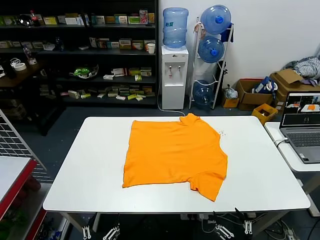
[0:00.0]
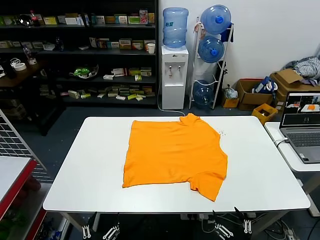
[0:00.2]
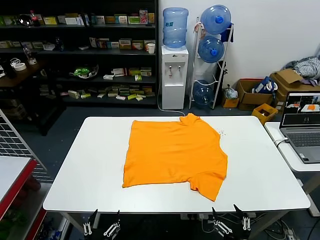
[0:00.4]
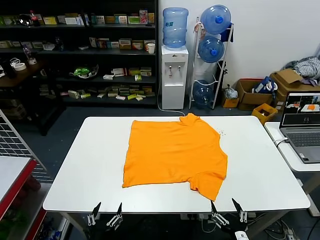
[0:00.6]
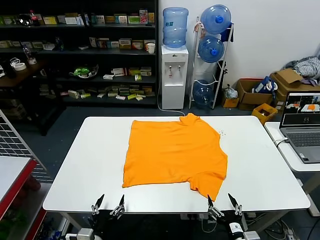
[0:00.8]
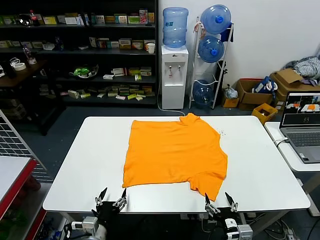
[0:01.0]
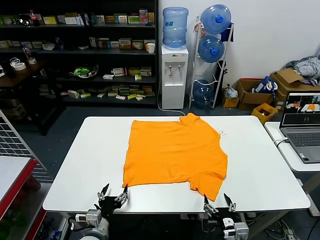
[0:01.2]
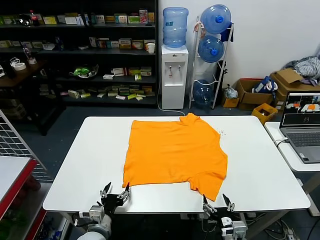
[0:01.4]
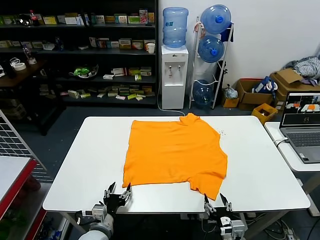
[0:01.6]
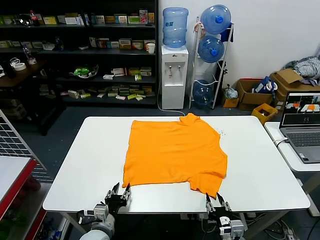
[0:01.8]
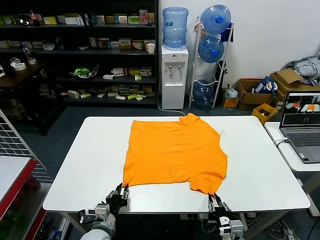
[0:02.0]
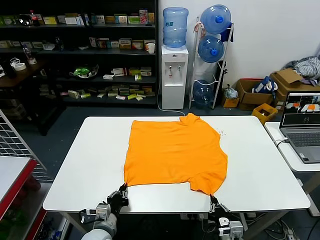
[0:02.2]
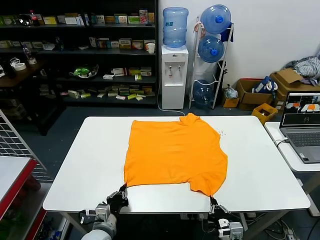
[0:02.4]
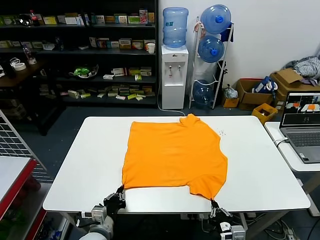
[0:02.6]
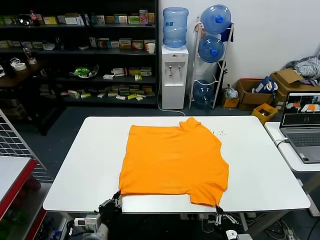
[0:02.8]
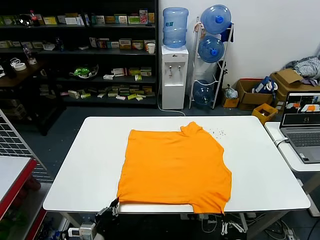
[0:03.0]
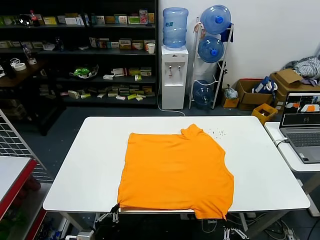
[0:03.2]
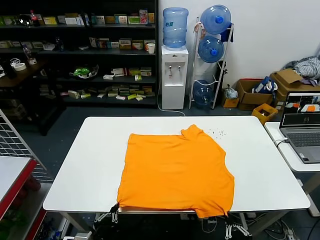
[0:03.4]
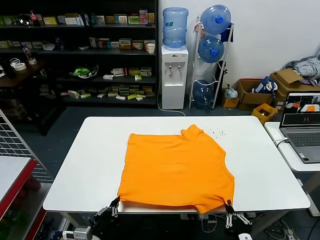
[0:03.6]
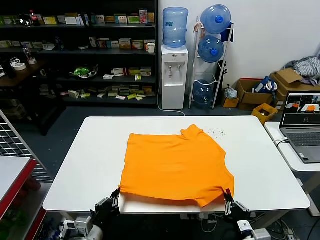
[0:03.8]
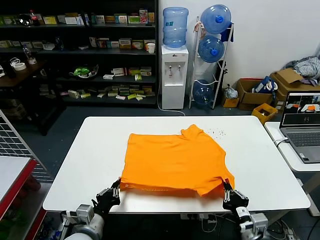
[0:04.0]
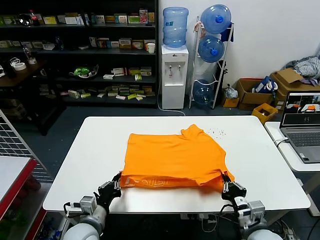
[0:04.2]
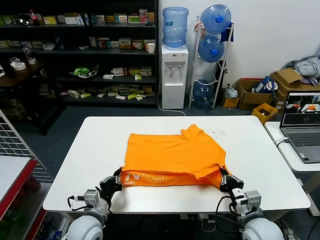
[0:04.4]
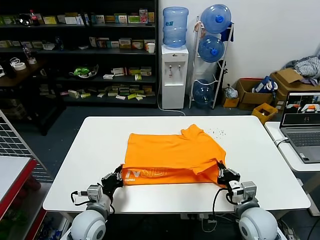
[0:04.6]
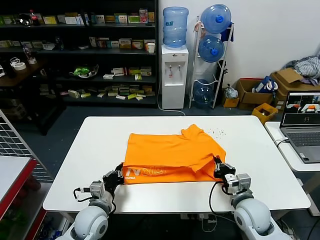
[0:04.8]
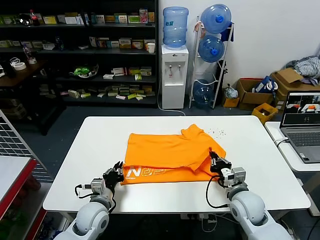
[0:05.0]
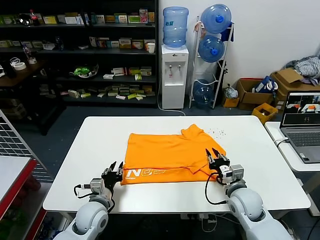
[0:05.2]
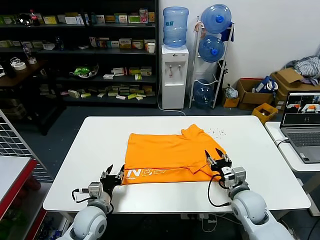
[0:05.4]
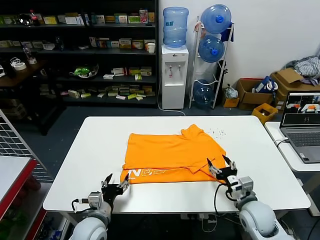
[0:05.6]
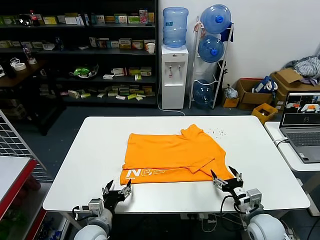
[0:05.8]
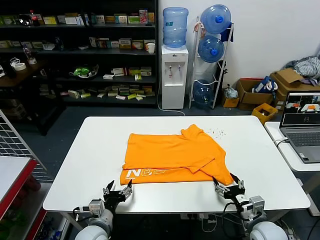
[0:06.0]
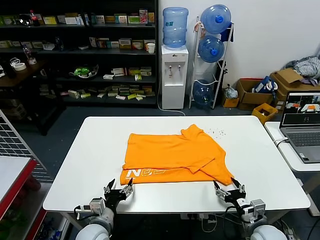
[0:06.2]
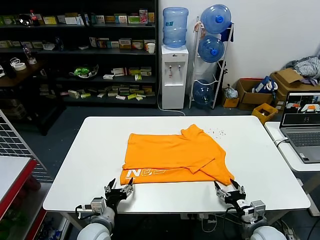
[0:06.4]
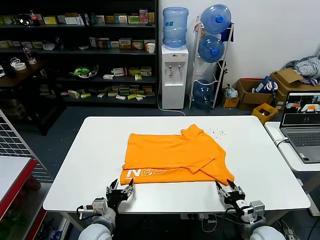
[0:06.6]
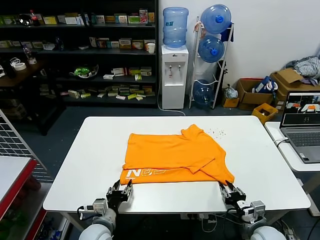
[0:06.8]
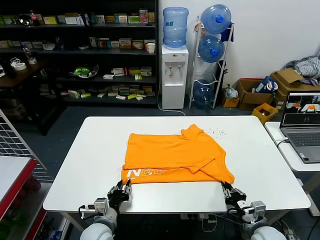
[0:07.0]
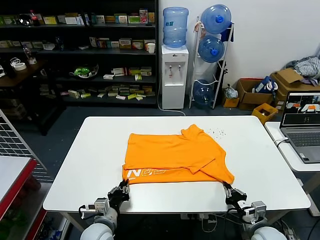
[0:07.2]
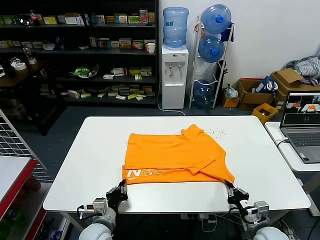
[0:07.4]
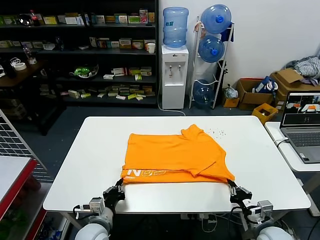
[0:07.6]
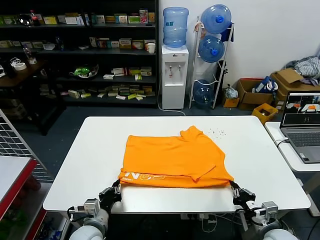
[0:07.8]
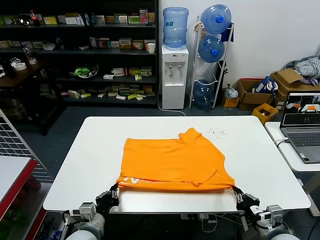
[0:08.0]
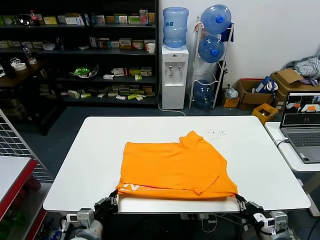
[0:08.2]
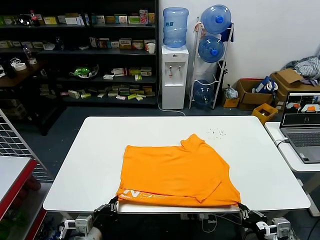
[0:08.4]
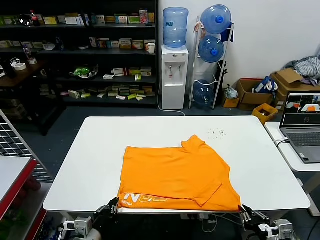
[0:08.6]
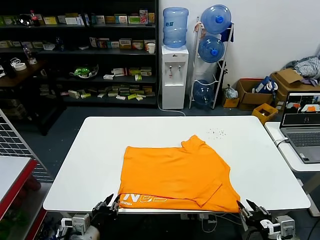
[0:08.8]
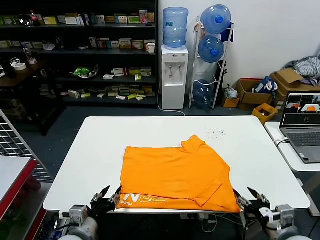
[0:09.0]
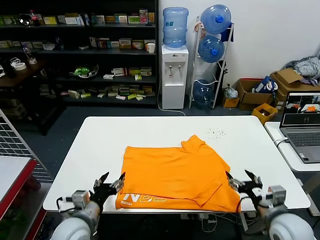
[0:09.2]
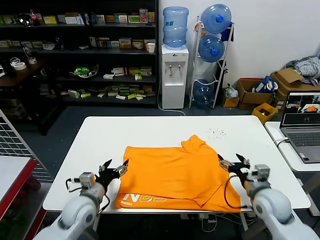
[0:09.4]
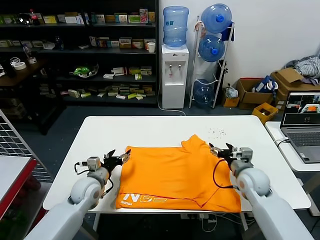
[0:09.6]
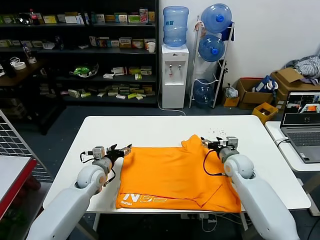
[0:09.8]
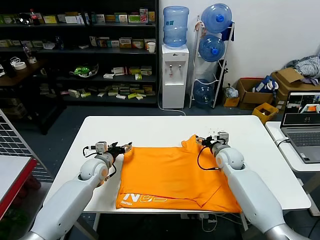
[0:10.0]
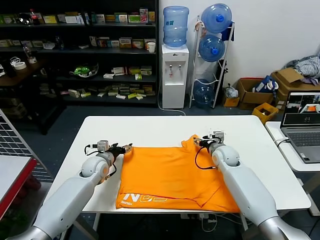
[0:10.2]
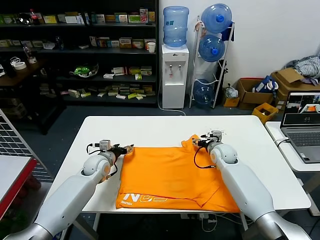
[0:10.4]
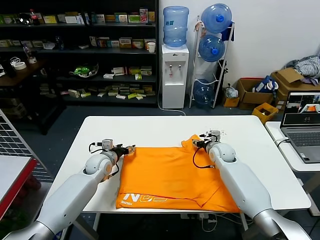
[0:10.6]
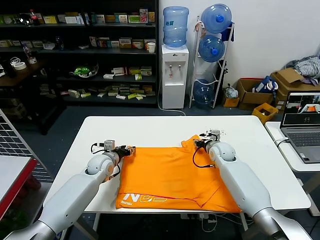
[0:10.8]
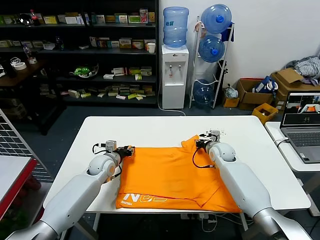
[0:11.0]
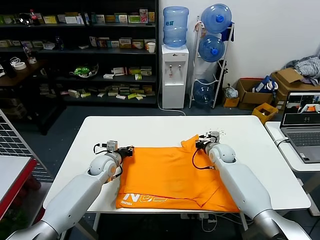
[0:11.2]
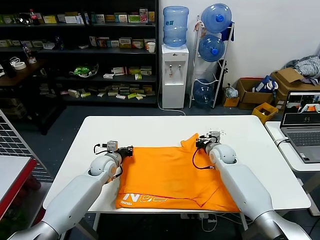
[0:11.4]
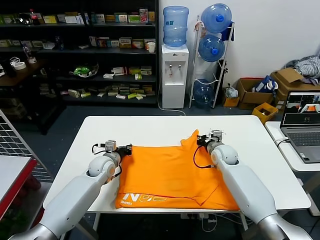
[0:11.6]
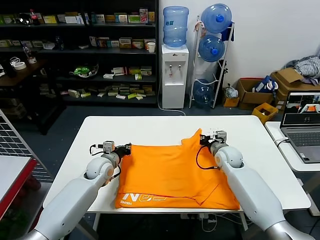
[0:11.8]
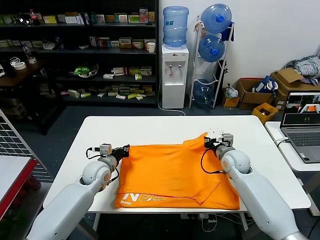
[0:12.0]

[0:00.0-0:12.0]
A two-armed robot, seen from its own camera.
Task of the whole recording: fold and organize the clothes.
Step, 0:00.0 to 0:02.2: use both grippers simultaneously to clamp the lower edge of the clothing fabric.
Step, 0:02.6 to 0:05.0: use both grippers to drag the lower edge of the fabric forward and fold it over the upper edge.
Step, 0:05.2 to 0:08.6: Drag the clothes downward with both gripper.
Step, 0:08.8 to 0:11.2: use both grippers simultaneously to clamp the upper edge of the clothing fabric.
0:01.6 to 0:03.0: The right gripper goes about 10 cm backward and upward, and closes. The left gripper moves backward, approximately 5 cm, and closes.
0:03.0 to 0:04.4: The right gripper moves forward, about 15 cm, while the left gripper heads forward, covering roughly 10 cm.
0:04.4 to 0:06.0: The right gripper moves downward, approximately 5 cm, reaches roughly 10 cm forward, then returns, and opens up, while the left gripper opens its fingers.
0:06.0 to 0:07.6: The right gripper closes up. The left gripper closes up.
0:07.6 to 0:09.0: The right gripper travels upward by roughly 10 cm, and opens; the left gripper goes about 10 cm upward and backward, and opens up.
0:09.0 to 0:10.4: Both grippers move forward, roughly 30 cm. The left gripper opens.
0:10.4 to 0:12.0: The left gripper closes its fingers; the right gripper heads backward, covering some 5 cm, and closes up.

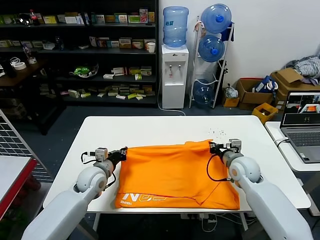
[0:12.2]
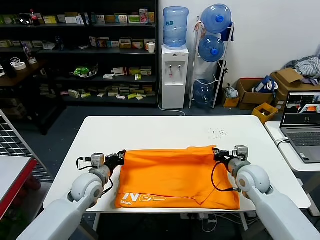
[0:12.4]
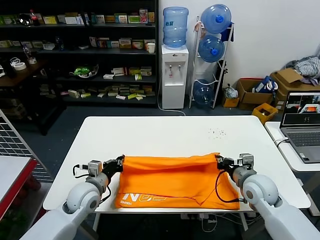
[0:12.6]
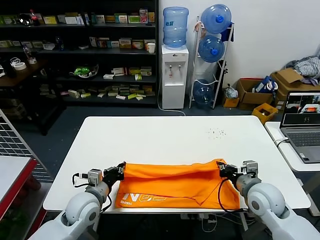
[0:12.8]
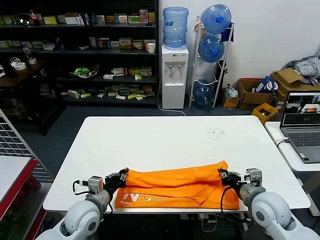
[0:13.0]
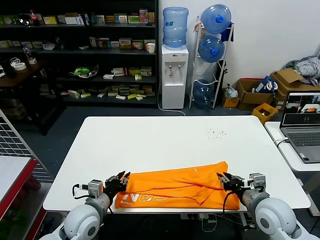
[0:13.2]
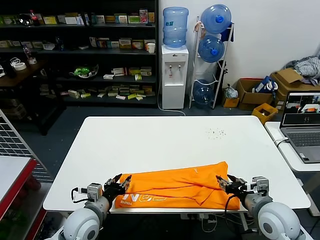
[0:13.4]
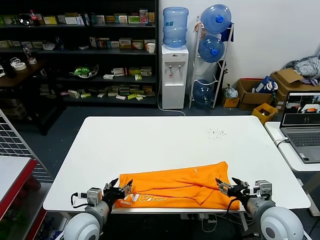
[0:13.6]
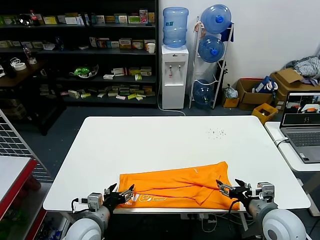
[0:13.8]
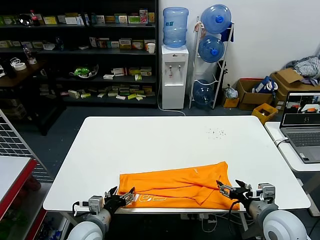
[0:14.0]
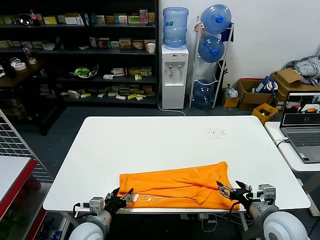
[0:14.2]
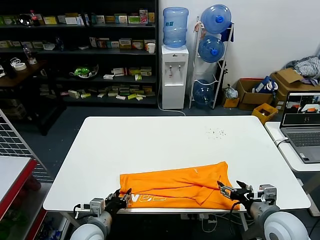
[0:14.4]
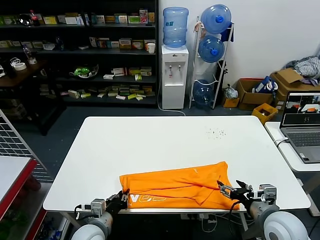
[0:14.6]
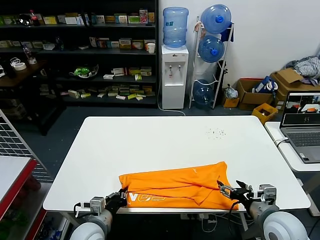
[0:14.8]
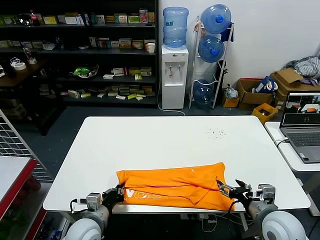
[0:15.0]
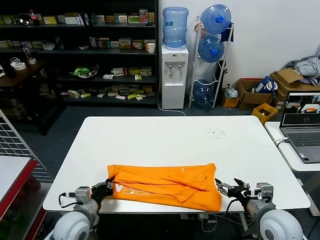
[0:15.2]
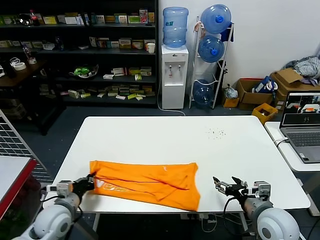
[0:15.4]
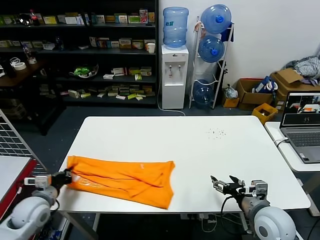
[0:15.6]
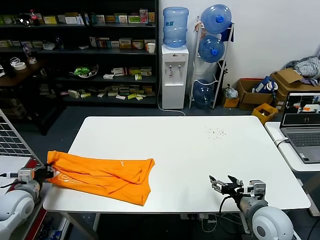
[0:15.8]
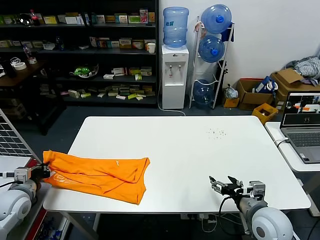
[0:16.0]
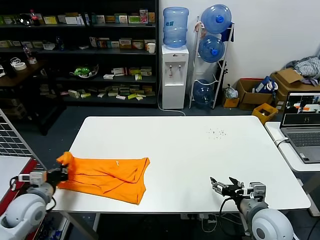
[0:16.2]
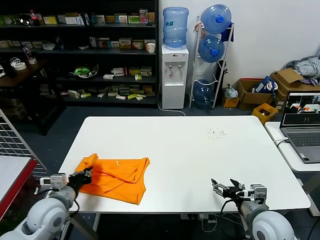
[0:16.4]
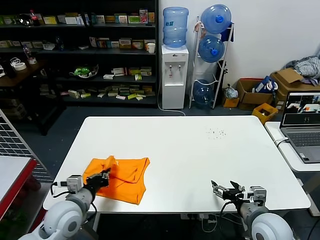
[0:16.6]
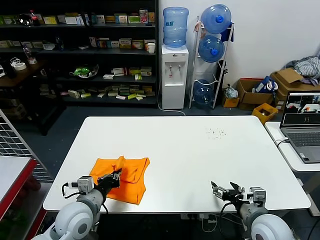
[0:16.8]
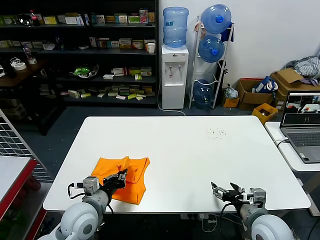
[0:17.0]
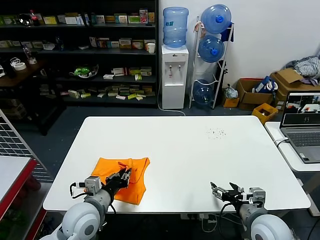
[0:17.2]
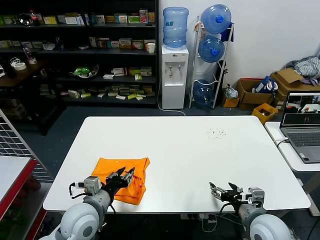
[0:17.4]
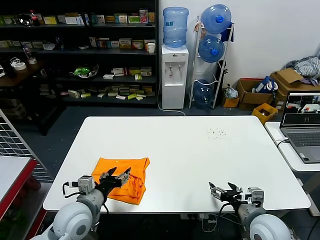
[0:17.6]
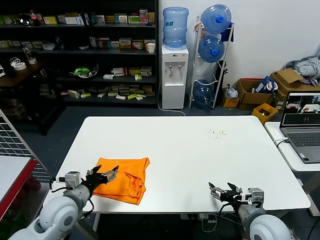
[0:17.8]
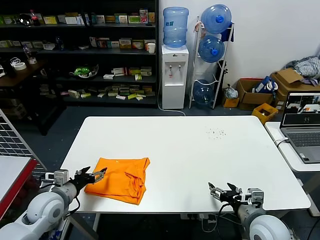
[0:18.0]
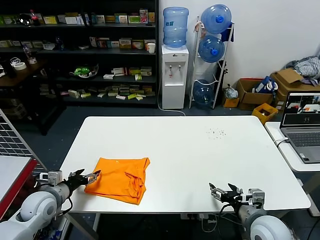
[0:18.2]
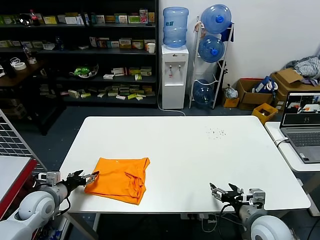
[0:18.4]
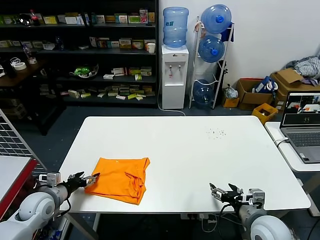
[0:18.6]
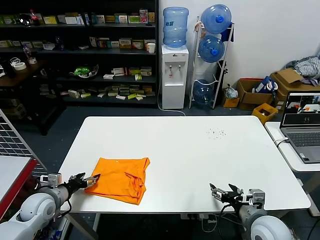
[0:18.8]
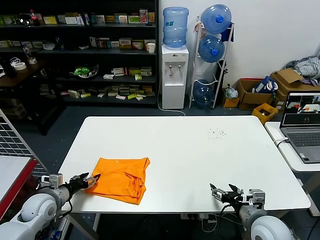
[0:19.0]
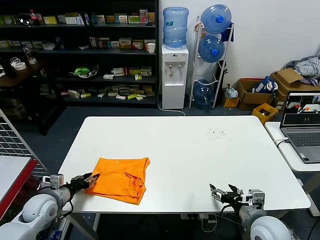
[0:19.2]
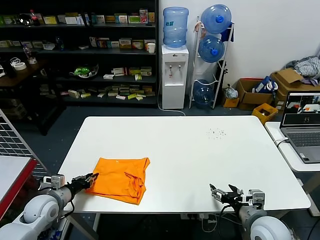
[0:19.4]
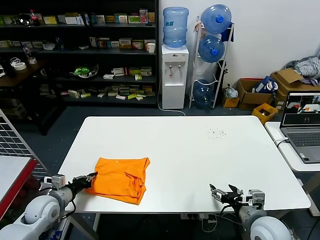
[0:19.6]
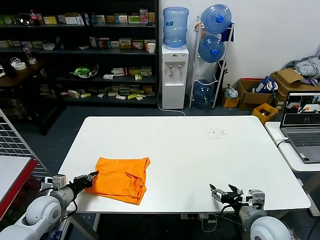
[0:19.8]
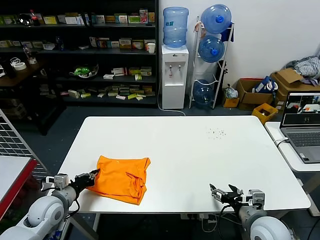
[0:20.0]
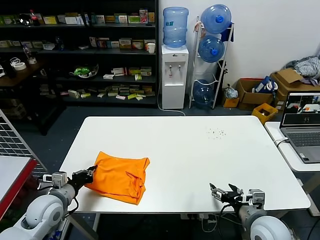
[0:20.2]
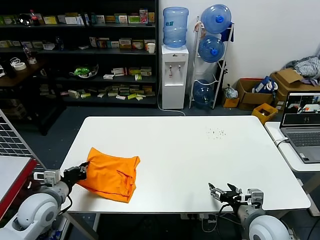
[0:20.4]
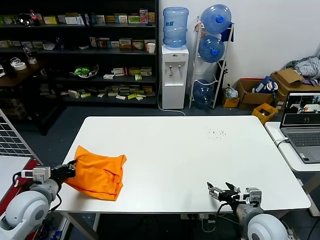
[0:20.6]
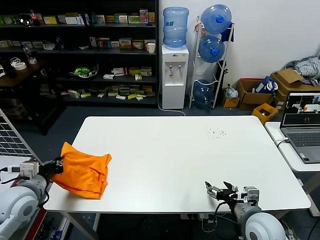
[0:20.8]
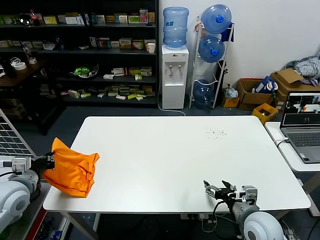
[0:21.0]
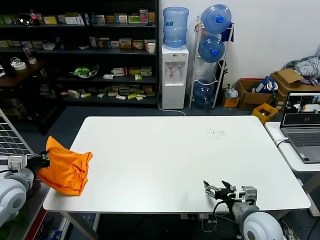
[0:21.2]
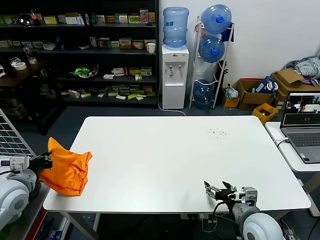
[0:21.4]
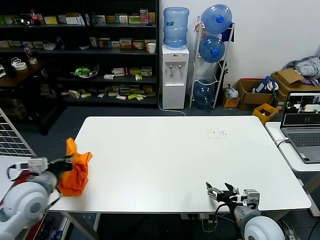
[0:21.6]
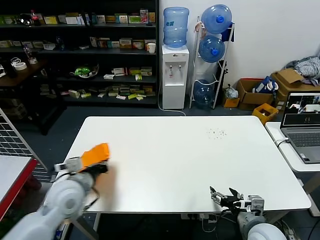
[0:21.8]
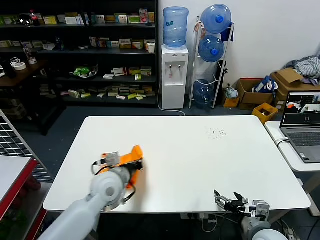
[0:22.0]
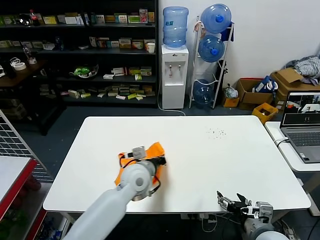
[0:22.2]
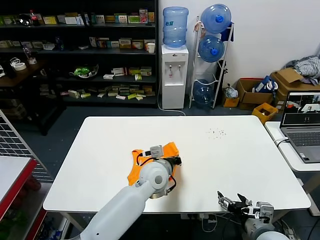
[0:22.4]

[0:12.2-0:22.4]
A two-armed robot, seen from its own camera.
Task of the whole recording: fold and organize the clothes.
Step, 0:12.2 to 0:13.2: use both grippers to drag the upper edge of the fabric backward and fold it over the lower edge.
Step, 0:13.4 to 0:14.8: use the left gripper to clamp the left edge of the fabric.
Step, 0:15.0 to 0:17.2: use the left gripper to drag the left edge of the fabric to the left and folds it over the right edge.
0:12.2 to 0:13.6: The grippers both shift backward by about 15 cm. The left gripper opens up. Meanwhile the right gripper opens.
0:13.6 to 0:15.2: The left gripper closes up.
0:15.2 to 0:16.6: The left gripper goes about 5 cm upward, and travels to the left and back again, some 20 cm each way.
0:16.6 to 0:18.0: The left gripper ends up roughly 5 cm from where it was, and opens.
0:18.0 to 0:19.4: The left gripper is displaced to the left and downward by some 10 cm, and closes its fingers.
0:19.4 to 0:21.0: The left gripper shifts roughly 15 cm upward.
0:21.0 to 0:22.4: The left gripper goes some 35 cm to the right; the right gripper ends up about 5 cm from where it was.
